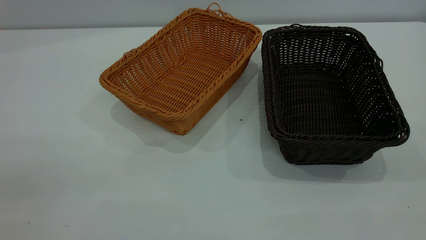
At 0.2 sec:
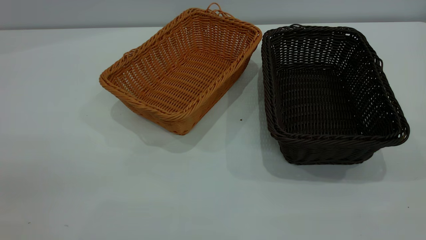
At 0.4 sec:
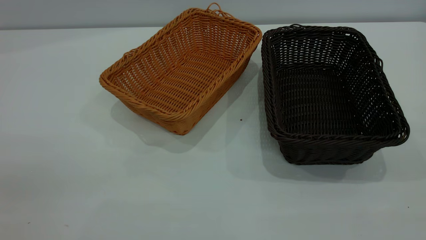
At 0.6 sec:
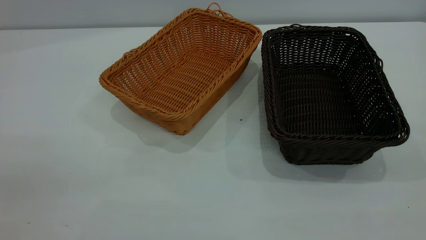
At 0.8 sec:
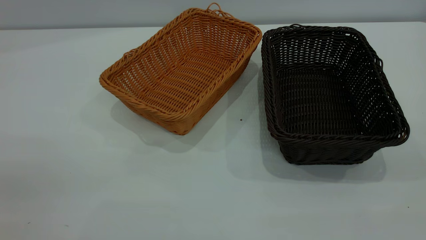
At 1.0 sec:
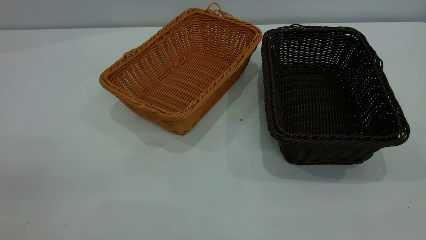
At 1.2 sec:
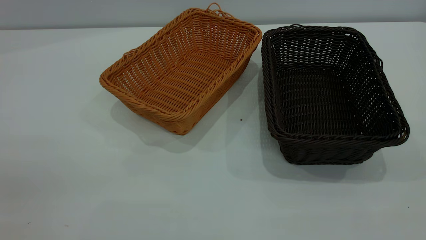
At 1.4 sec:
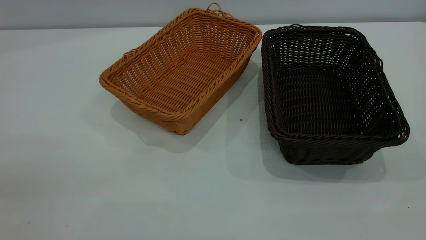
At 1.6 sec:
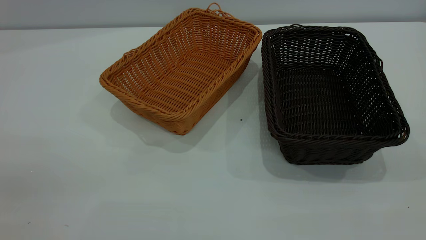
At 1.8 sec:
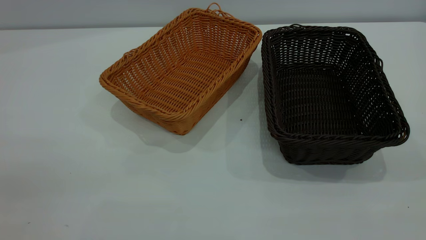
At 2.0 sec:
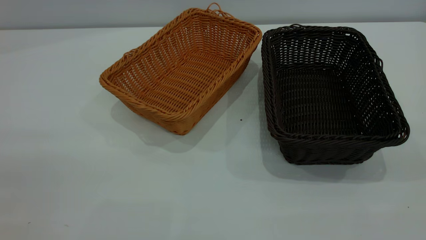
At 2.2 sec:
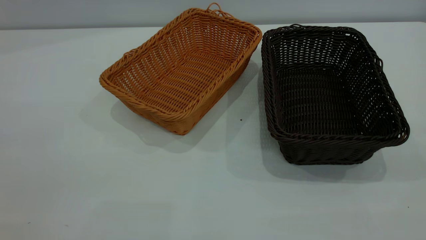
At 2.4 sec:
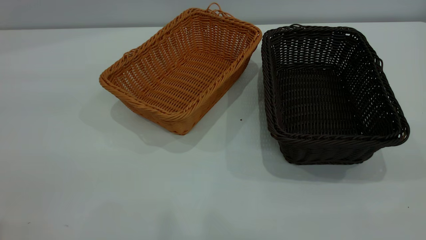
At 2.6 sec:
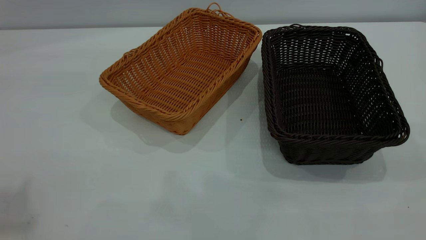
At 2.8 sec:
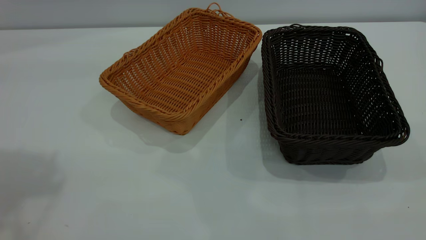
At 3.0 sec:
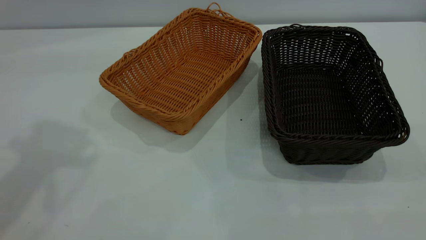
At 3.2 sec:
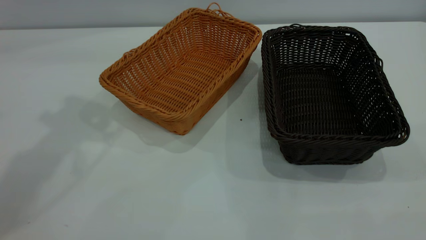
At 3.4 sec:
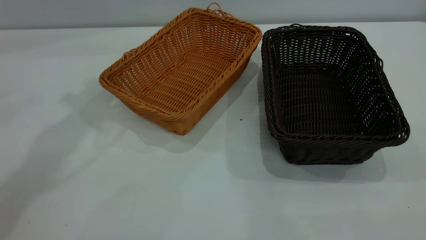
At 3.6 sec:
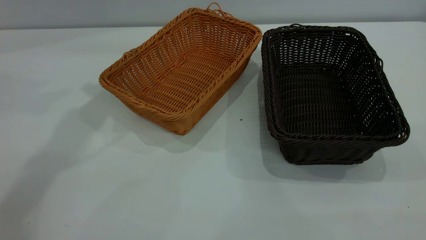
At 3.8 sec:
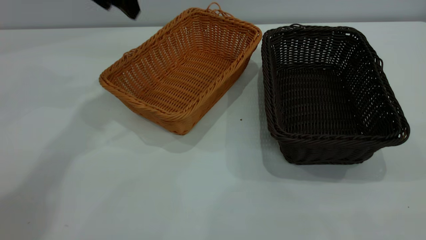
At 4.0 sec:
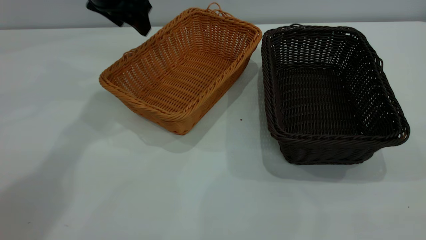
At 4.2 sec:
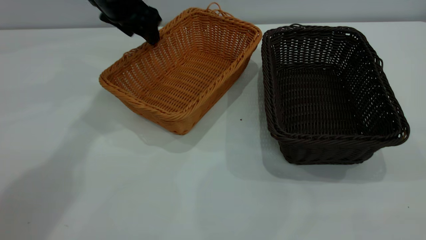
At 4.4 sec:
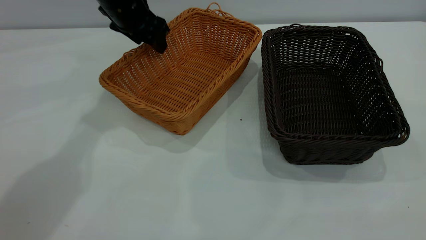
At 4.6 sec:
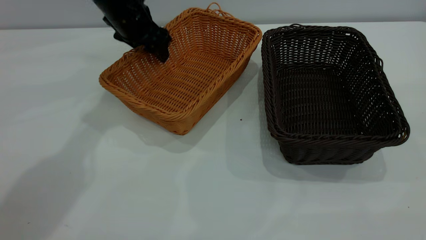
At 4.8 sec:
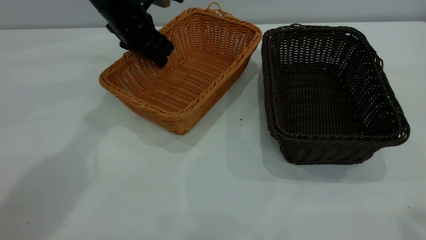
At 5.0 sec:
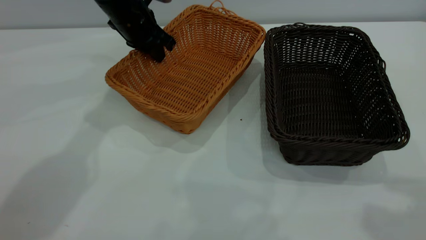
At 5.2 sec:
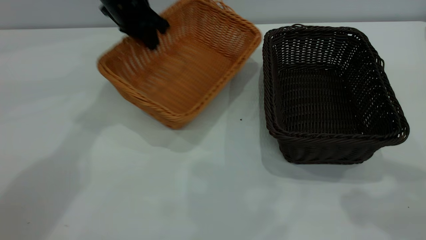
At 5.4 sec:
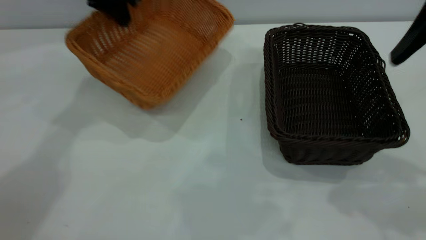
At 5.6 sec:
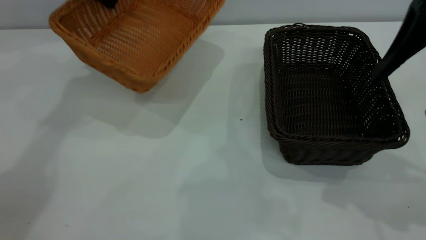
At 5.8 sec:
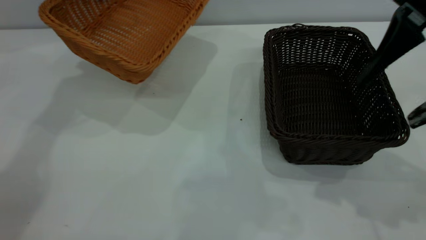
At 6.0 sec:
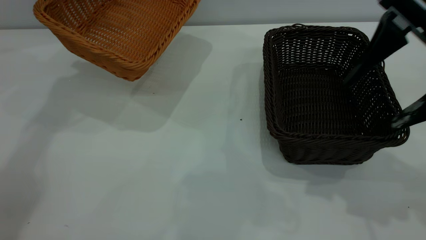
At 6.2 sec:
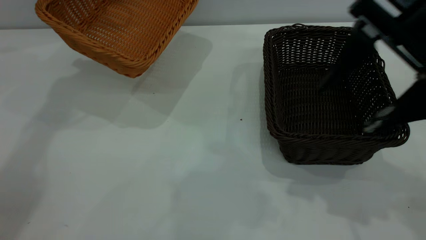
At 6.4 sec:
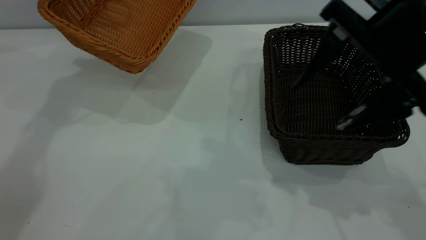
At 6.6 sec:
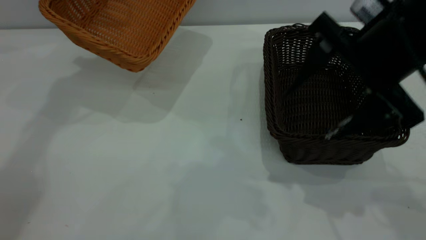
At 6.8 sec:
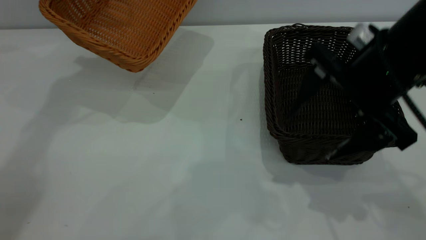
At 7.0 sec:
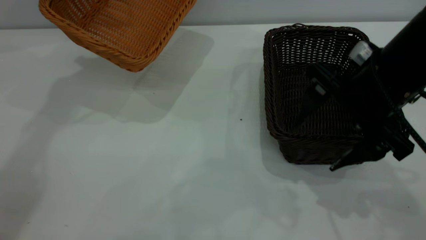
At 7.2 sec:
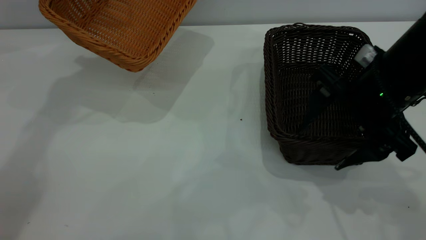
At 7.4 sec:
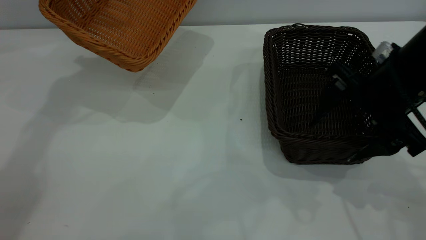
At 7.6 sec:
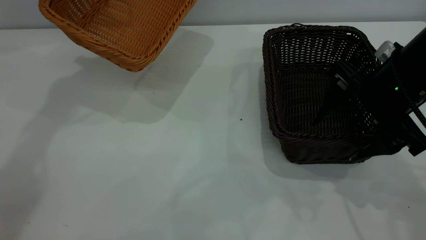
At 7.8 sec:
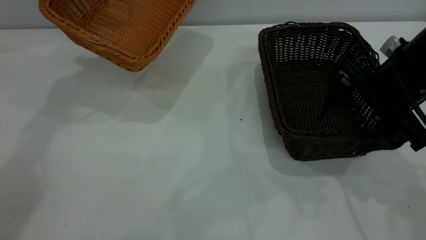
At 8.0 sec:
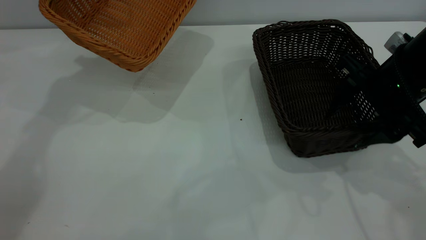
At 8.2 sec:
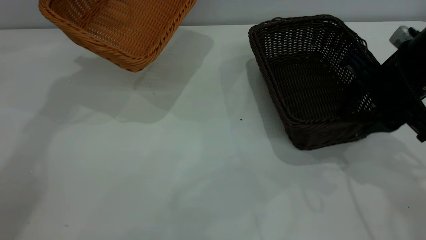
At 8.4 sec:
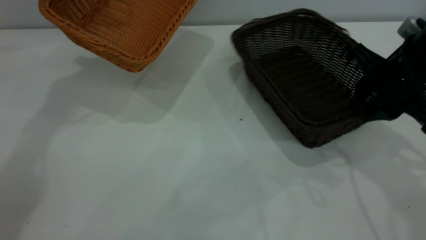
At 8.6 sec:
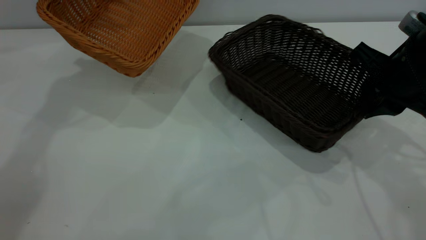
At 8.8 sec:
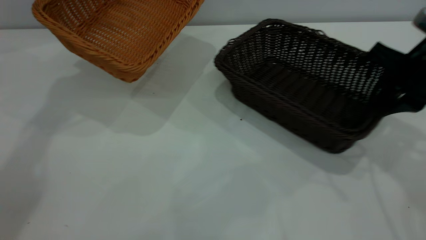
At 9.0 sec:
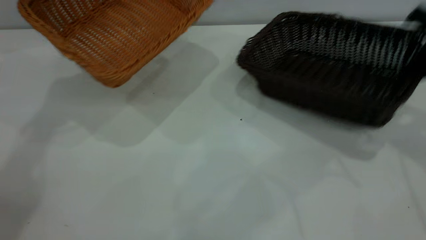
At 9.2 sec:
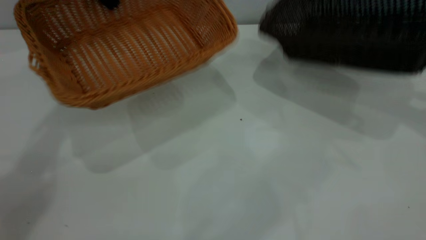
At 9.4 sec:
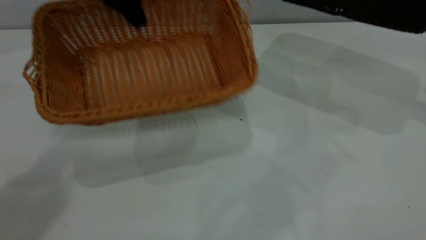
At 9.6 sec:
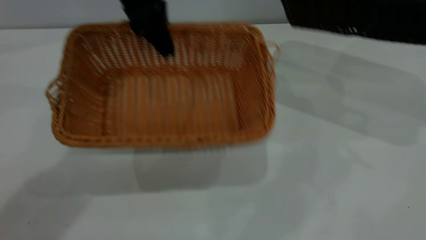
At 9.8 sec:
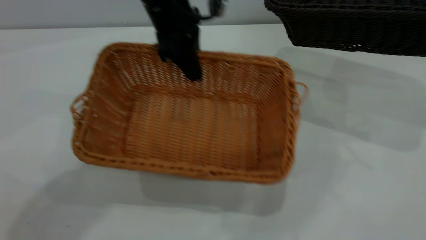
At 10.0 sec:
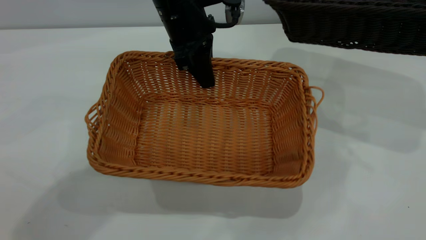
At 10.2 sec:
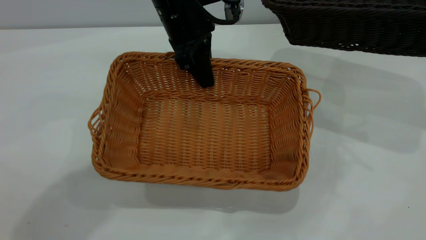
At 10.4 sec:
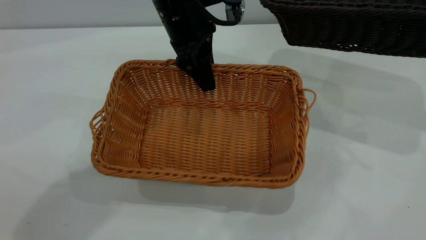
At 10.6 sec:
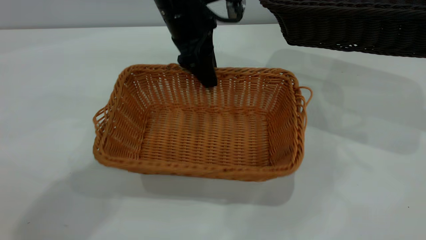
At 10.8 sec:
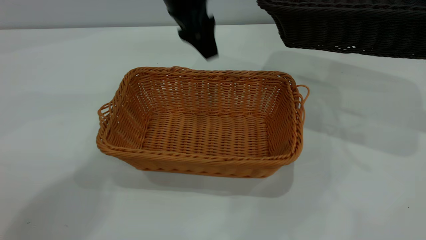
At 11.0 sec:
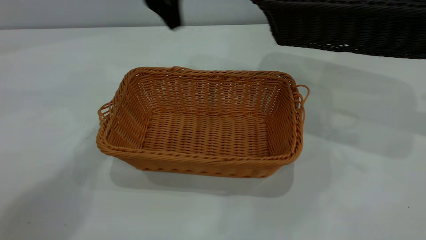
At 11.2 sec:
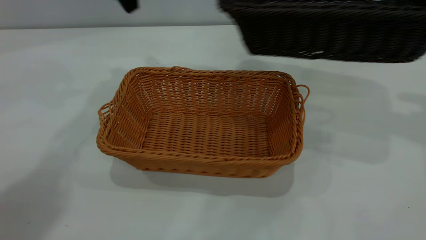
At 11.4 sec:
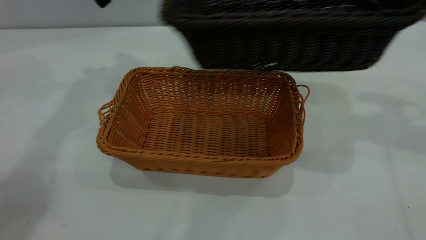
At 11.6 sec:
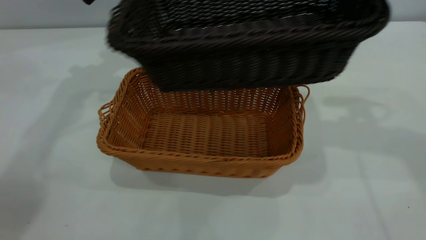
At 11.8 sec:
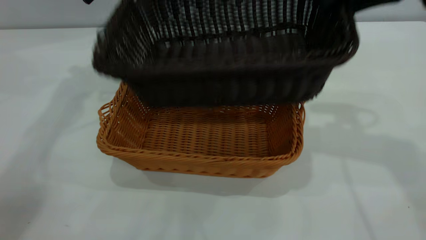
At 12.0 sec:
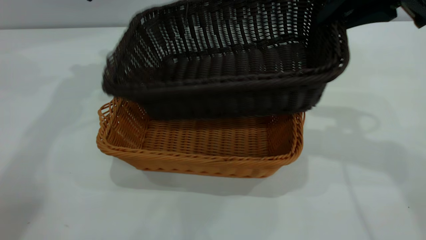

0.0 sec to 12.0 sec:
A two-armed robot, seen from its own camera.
Task of the whole recording: the left gripper grasp the brown basket and place it in the center of the table, the right gripper grasp the black basket and place it inside the brown one.
Step, 0.0 sec to 9.0 sec: Pick up the light basket with the right gripper.
Step, 9.2 sec to 10.8 sec: Place the light-colored basket in the center.
0.0 sec to 1.6 sec: The two grippers keep their place.
3.0 sec to 4.4 sec: The left gripper travels downward, forward and to the right by roughly 30 cm.
4.4 sec to 6.0 sec: The right gripper goes about 25 cm forward and downward, while the left gripper shifts about 15 cm upward and to the left, and closes up.
6.0 sec to 7.6 sec: The right gripper heads downward, covering approximately 10 cm.
7.6 sec to 9.0 sec: The right gripper moves to the right and upward, approximately 15 cm, and closes its fingers.
9.0 sec to 10.4 sec: The right gripper heads upward and to the right, covering approximately 10 cm; the left gripper shifts approximately 20 cm to the right, downward and backward, and opens up.
10.4 sec to 12.0 sec: The right gripper is displaced to the left by roughly 20 cm. Meanwhile the left gripper goes roughly 20 cm to the left and upward.

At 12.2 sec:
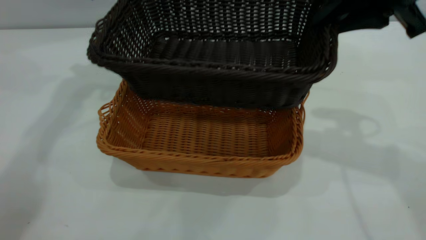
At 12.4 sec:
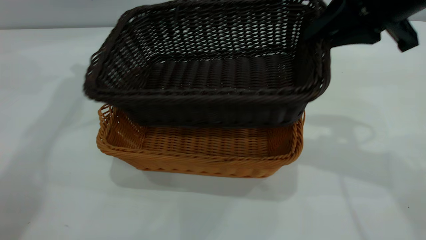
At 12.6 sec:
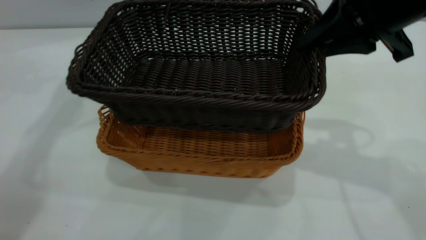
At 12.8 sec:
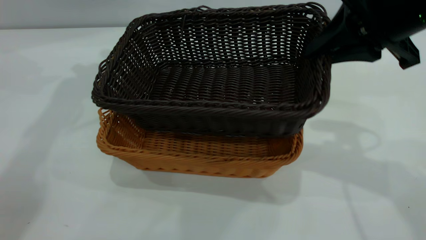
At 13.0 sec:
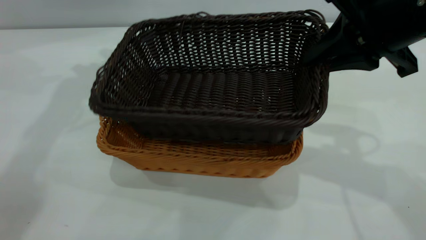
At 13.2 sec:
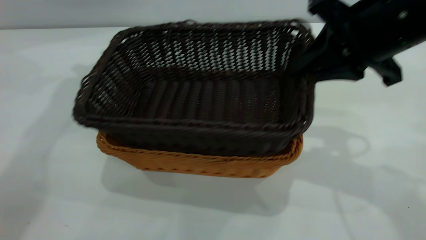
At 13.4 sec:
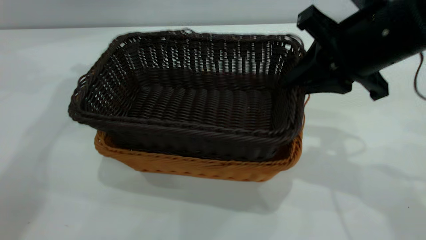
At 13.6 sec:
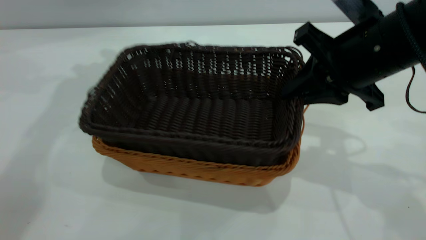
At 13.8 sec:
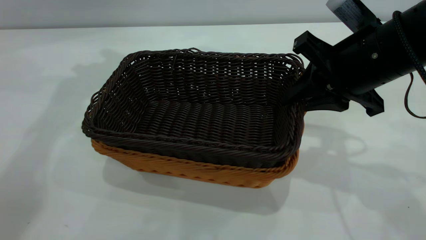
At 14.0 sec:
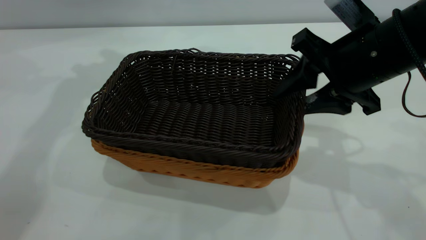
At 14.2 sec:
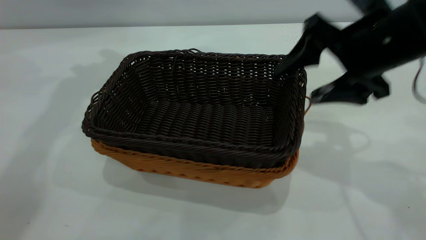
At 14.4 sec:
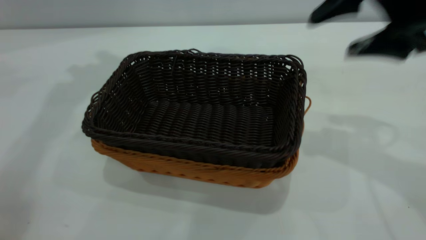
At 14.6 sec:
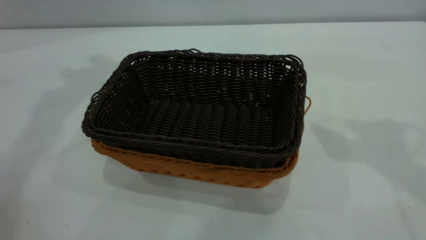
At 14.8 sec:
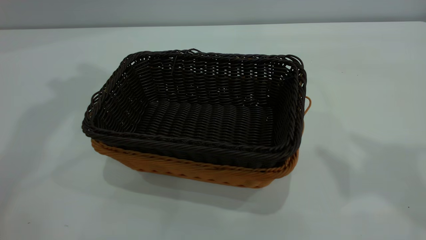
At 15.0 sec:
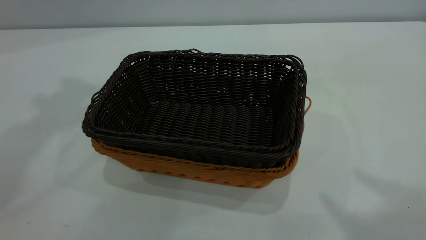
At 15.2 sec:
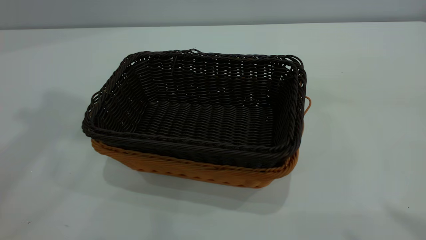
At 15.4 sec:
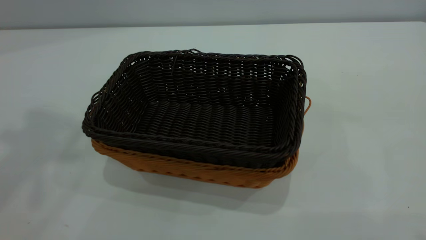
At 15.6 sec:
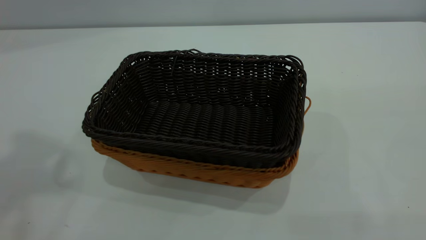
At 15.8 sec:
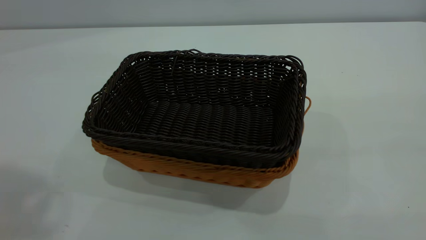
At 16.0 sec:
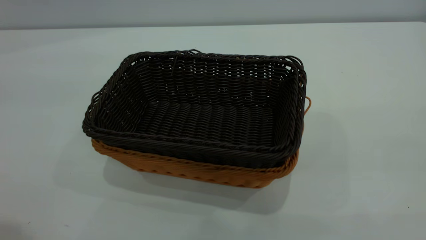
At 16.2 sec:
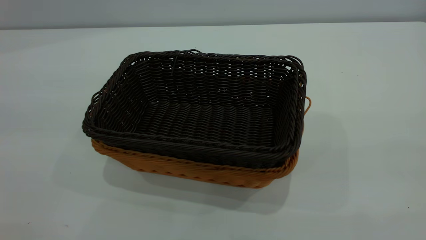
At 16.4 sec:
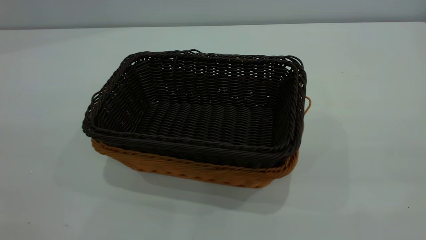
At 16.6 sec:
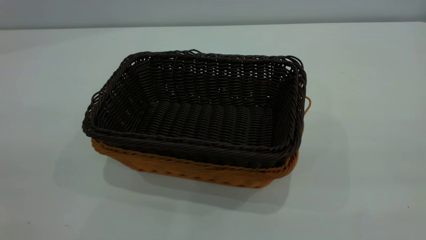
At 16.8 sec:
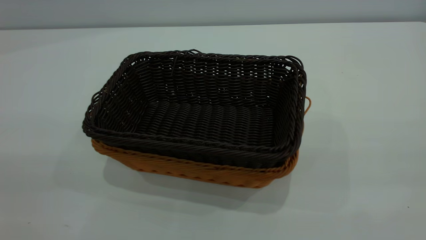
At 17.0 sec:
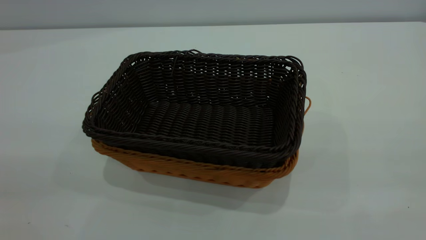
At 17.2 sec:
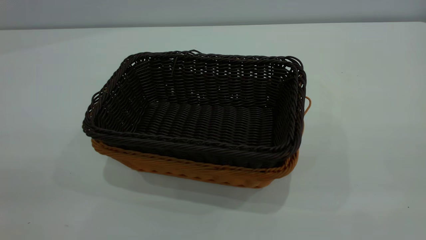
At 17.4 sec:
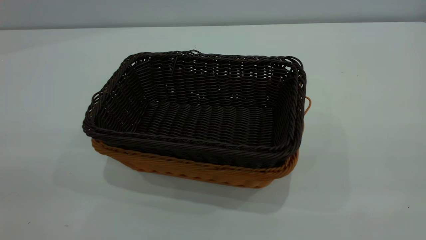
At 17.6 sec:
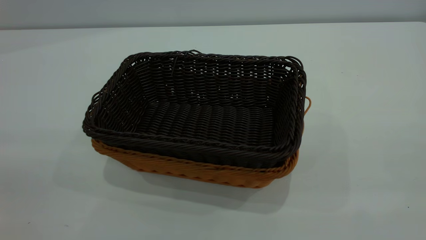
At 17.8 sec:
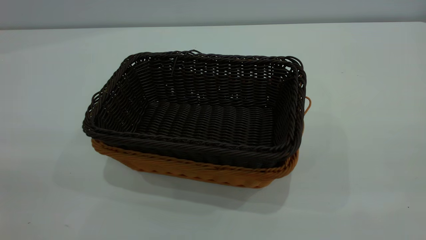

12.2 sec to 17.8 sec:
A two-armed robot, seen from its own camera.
Task of the whole recording: the left gripper grasp the brown basket and place it in the center of the table, the right gripper grasp the black basket and place it inside the brown one.
Step, 12.2 sec to 14.0 sec: Place the dark basket on top of the light basket.
12.2 sec to 13.6 sec: The right gripper goes roughly 10 cm downward.
13.6 sec to 15.0 sec: Both grippers travel together upward and backward, approximately 30 cm. The right gripper opens up.
